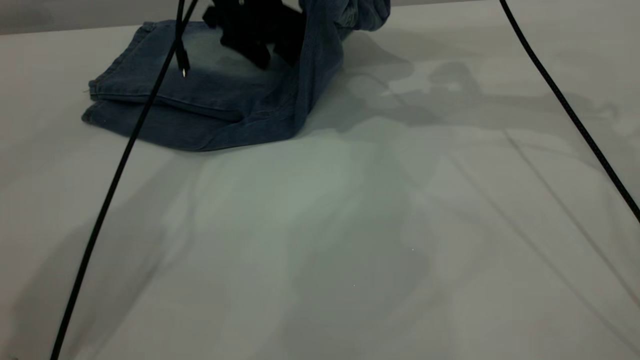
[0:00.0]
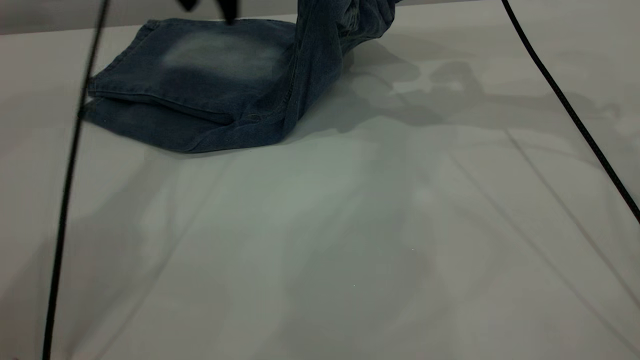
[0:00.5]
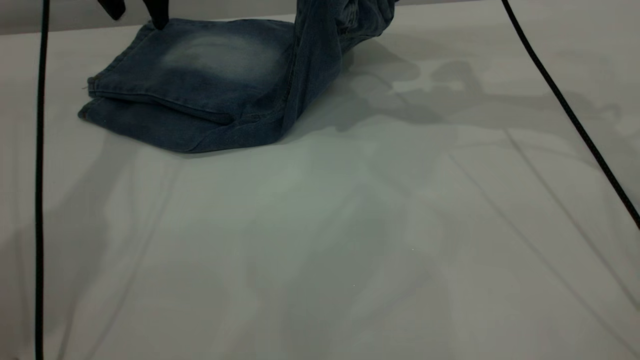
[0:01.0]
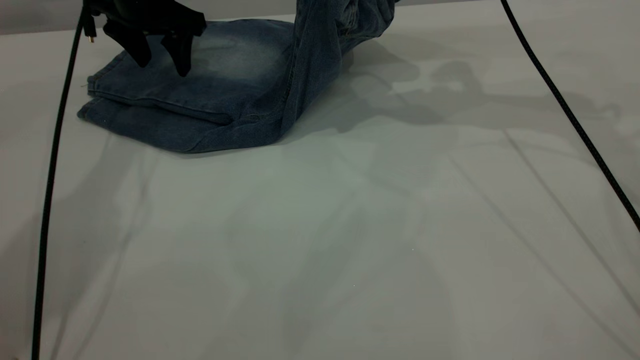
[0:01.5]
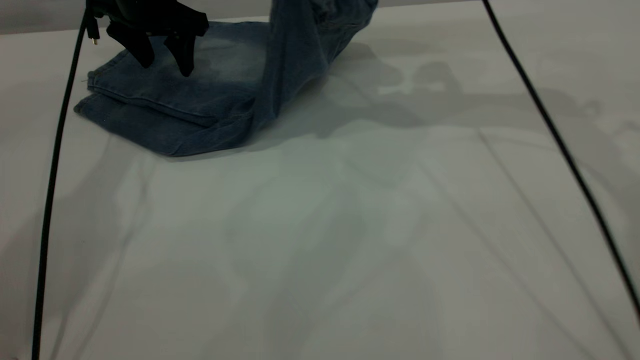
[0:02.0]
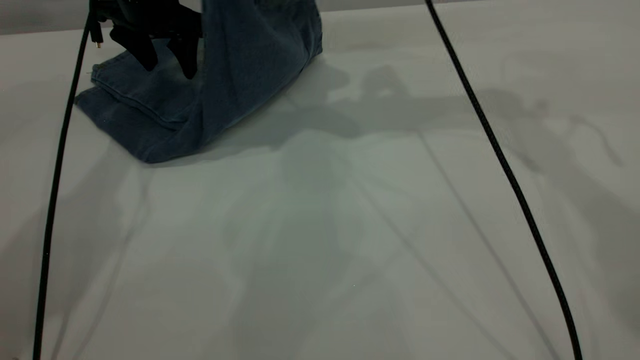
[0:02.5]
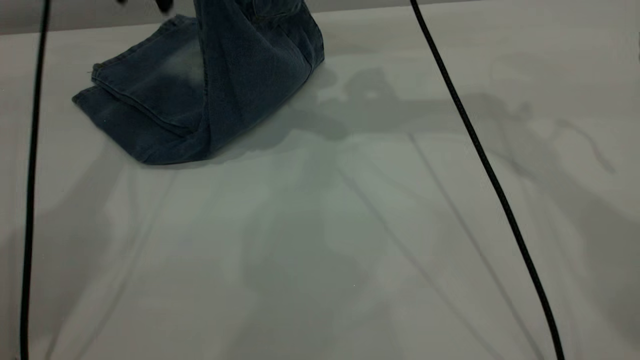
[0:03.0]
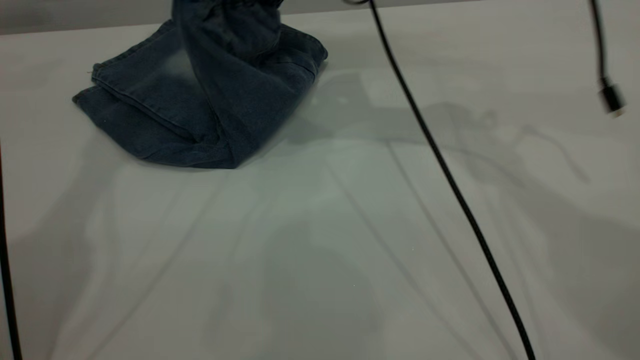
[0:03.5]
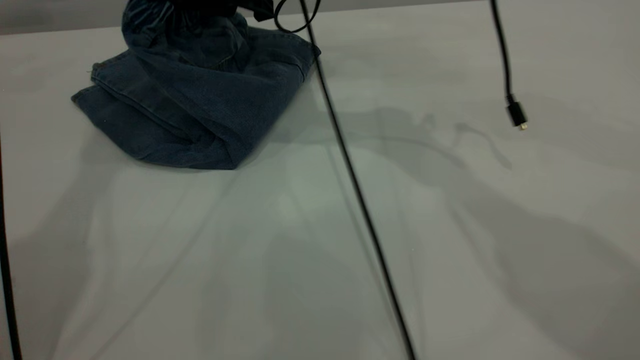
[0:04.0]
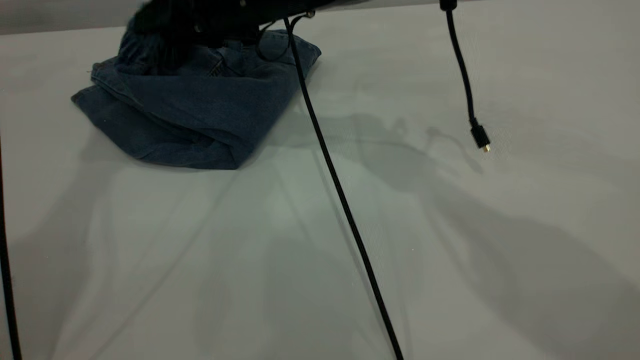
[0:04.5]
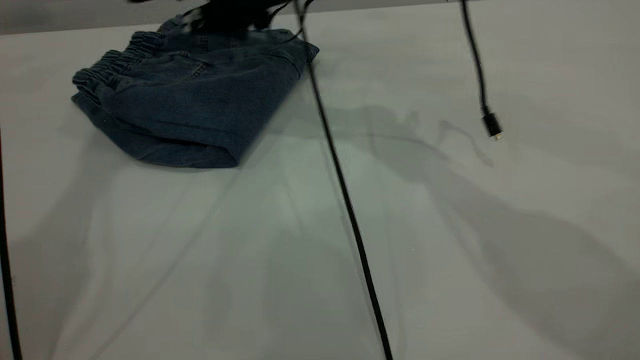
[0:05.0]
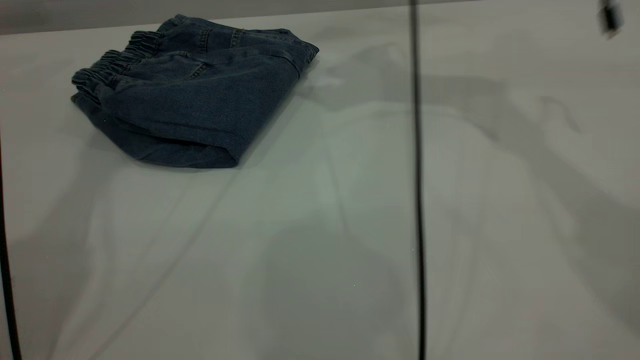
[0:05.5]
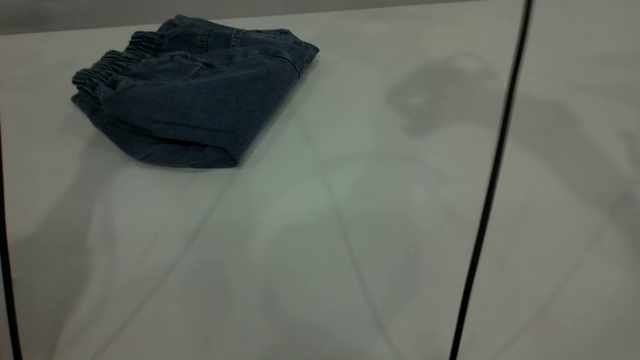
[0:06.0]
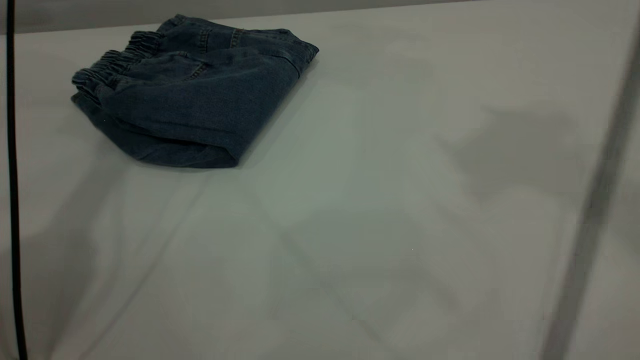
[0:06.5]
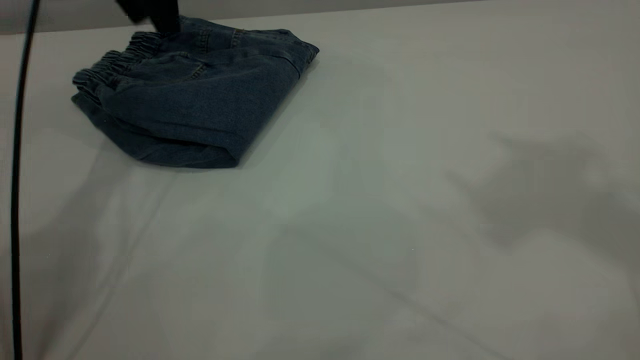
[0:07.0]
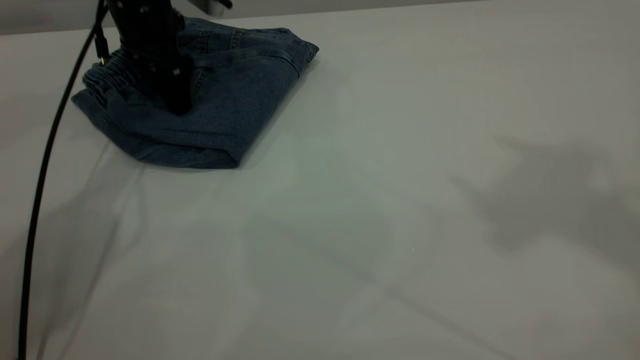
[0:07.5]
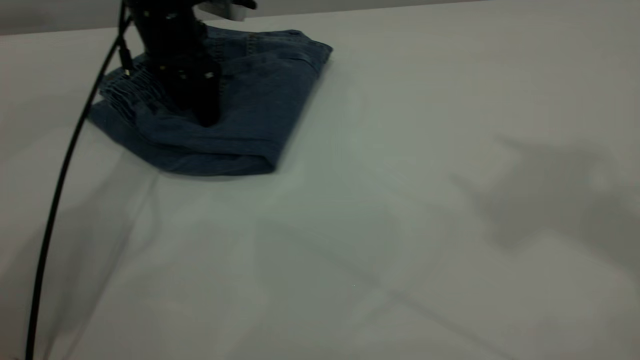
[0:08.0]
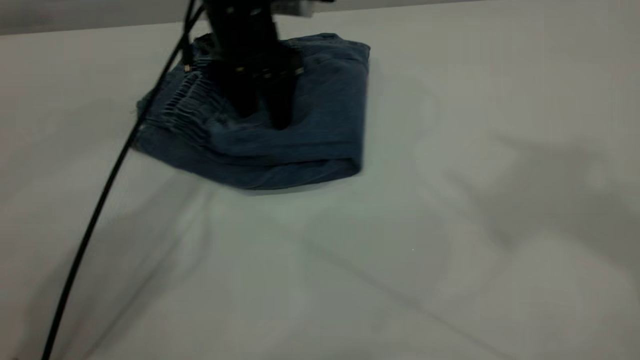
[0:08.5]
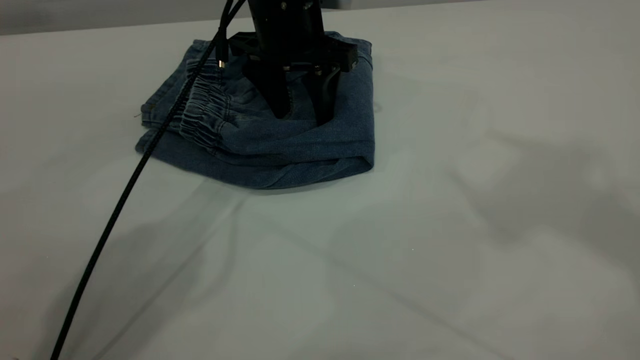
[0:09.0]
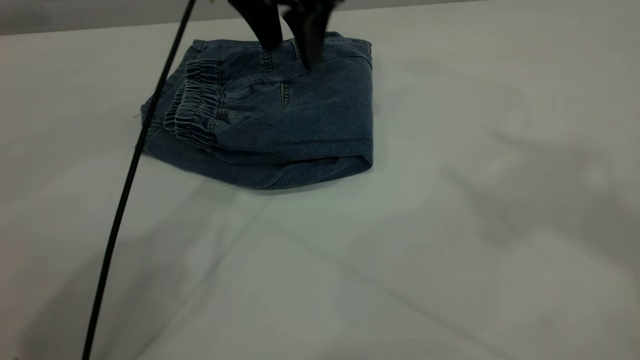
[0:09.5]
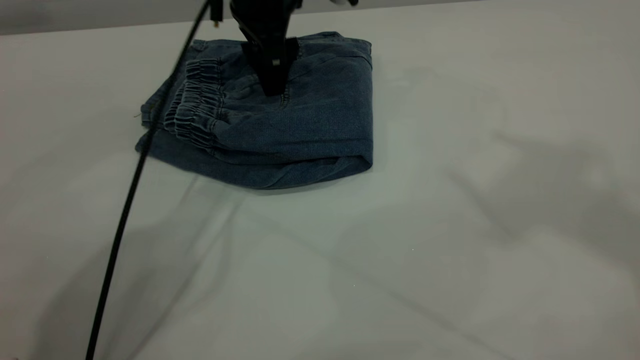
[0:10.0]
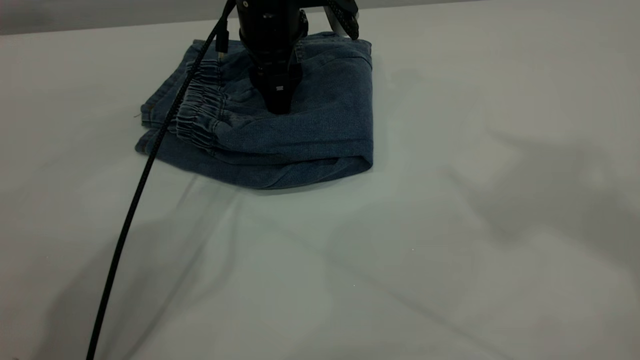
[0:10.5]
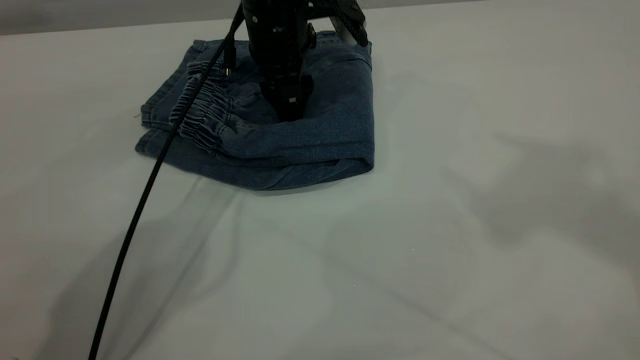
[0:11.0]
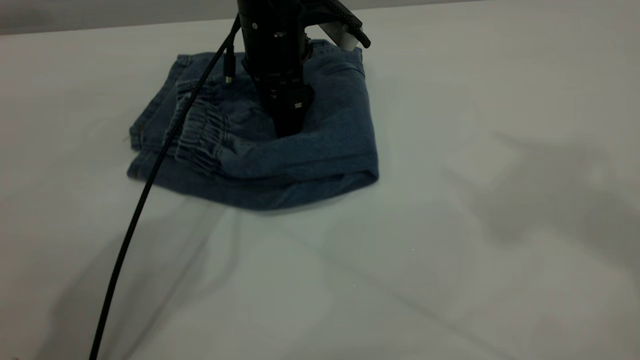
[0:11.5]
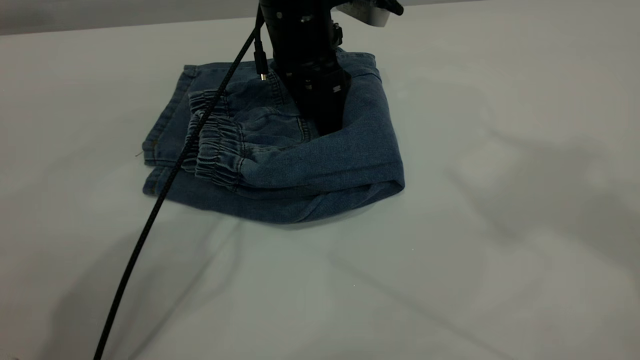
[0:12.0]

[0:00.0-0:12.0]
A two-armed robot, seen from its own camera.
Step, 0:00.0 to 0:05.0: Fold your pants from right to left.
0:00.0 to 0:02.0: The left gripper goes roughly 10 cm to the left.
0:02.0 to 0:04.0: The left gripper moves upward, approximately 25 cm; the right gripper goes approximately 15 cm to the left.
0:04.0 to 0:06.0: The right gripper goes roughly 30 cm upward and to the right, and opens.
0:06.0 to 0:08.0: The left gripper goes some 25 cm downward; the right gripper moves backward and upward, about 20 cm.
0:08.0 to 0:10.0: The left gripper goes roughly 10 cm to the right.

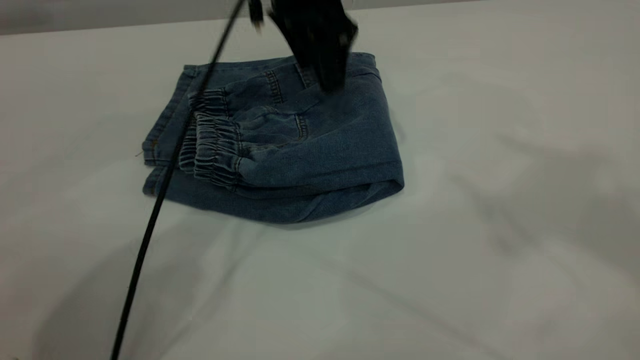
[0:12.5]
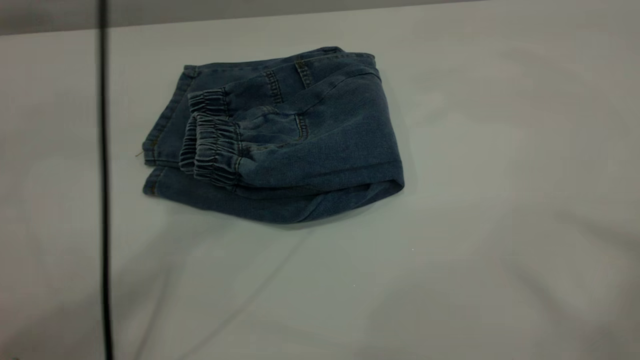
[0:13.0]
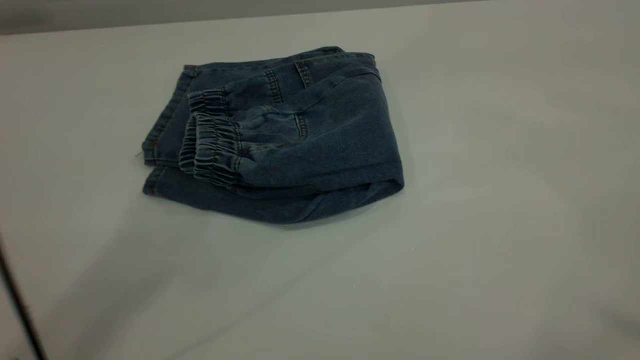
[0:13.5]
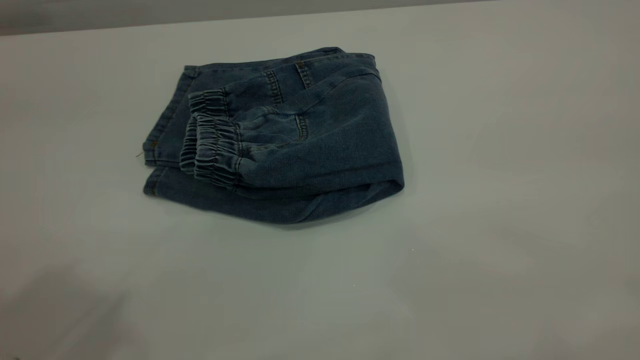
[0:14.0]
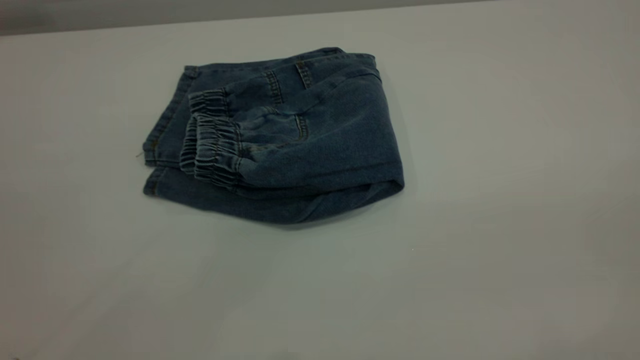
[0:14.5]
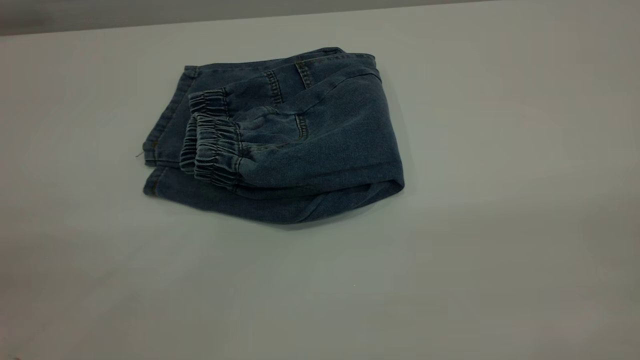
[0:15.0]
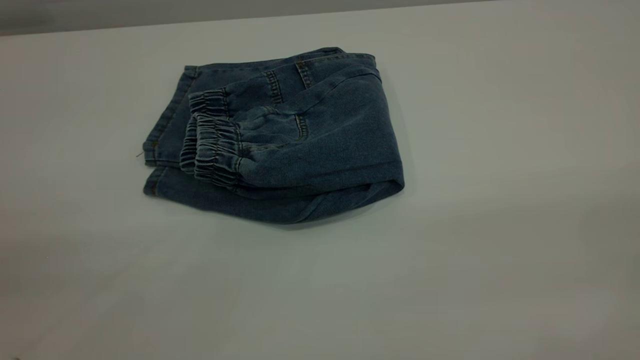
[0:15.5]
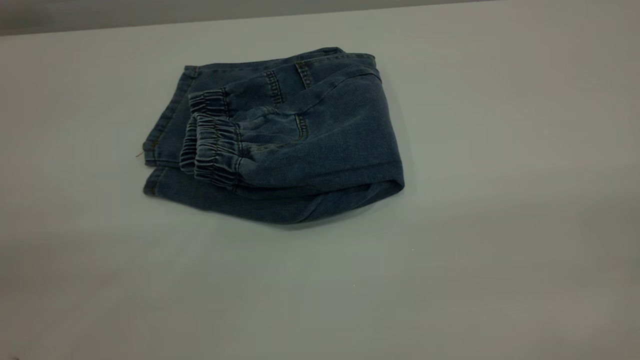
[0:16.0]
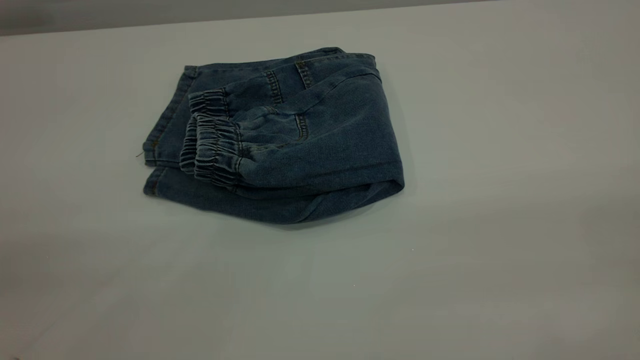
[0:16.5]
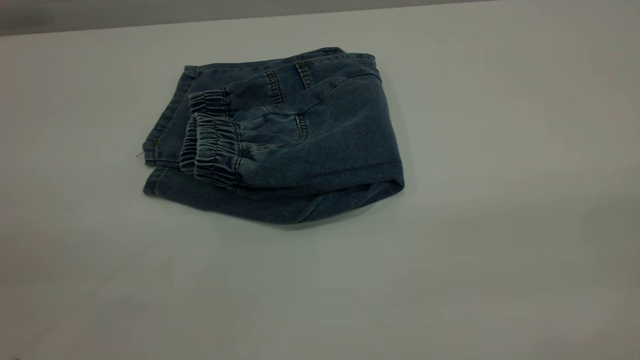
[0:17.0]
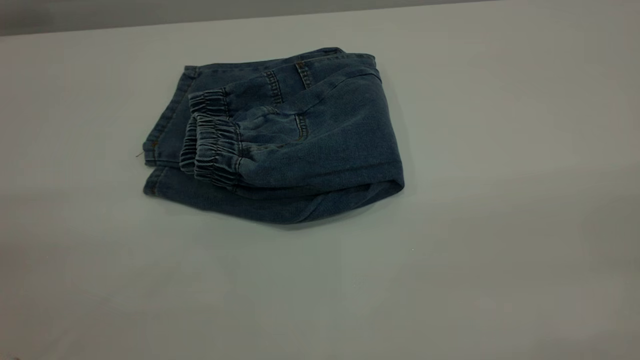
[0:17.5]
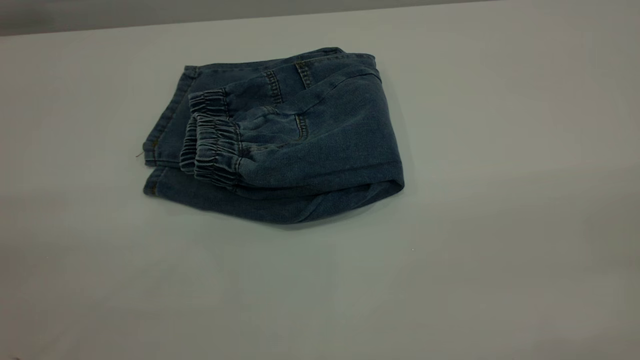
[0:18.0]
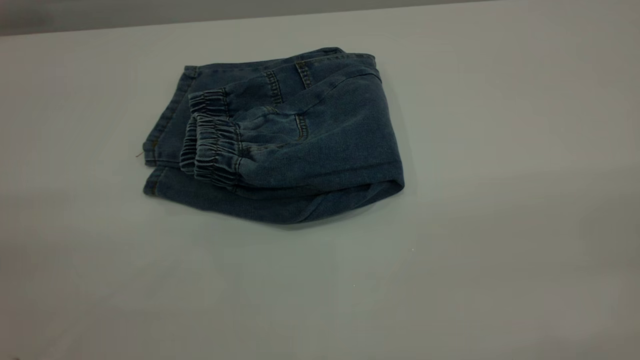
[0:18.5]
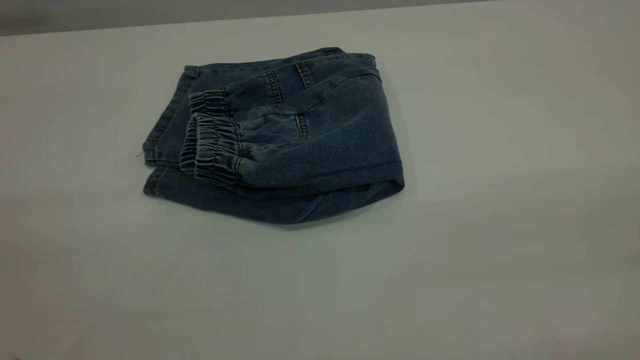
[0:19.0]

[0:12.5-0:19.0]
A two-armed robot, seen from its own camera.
0:12.5 to 0:14.5: The right gripper travels backward and downward by roughly 35 cm; the left gripper goes approximately 50 cm backward, to the left and upward.

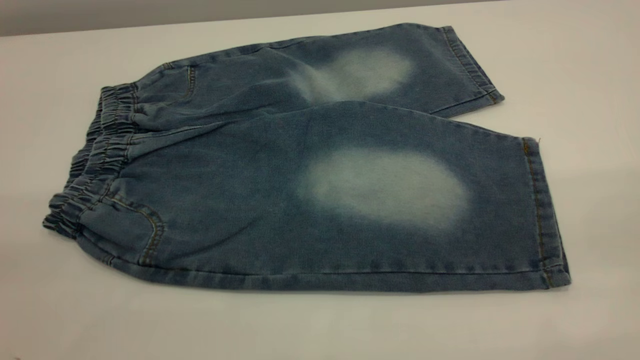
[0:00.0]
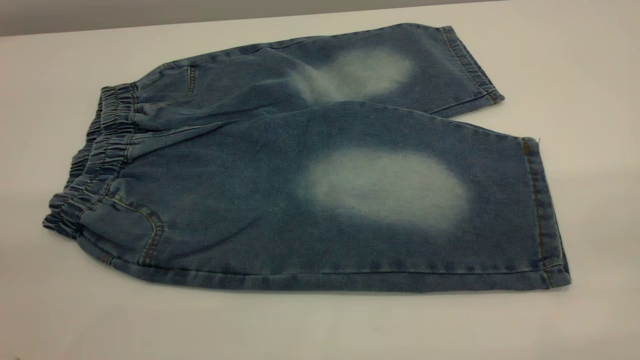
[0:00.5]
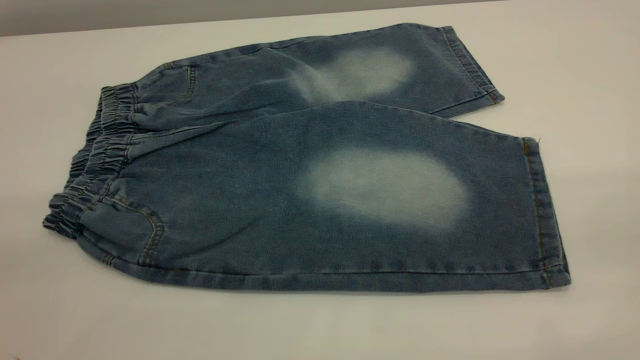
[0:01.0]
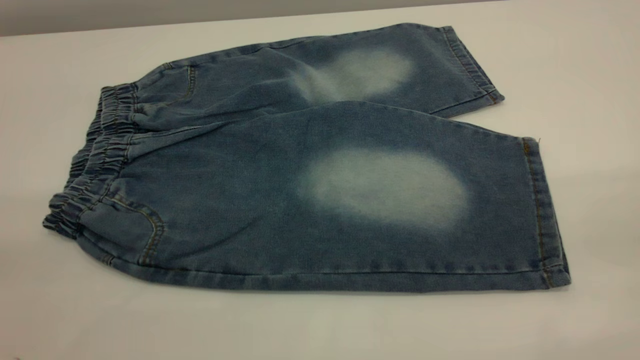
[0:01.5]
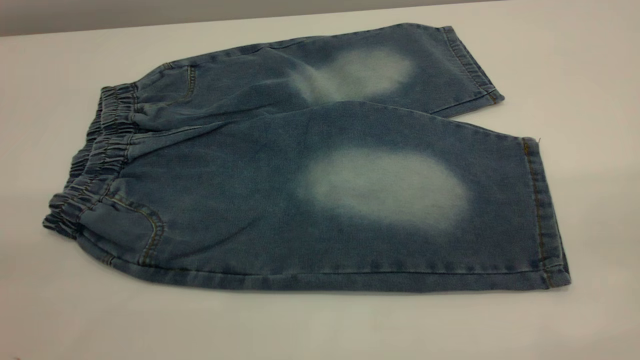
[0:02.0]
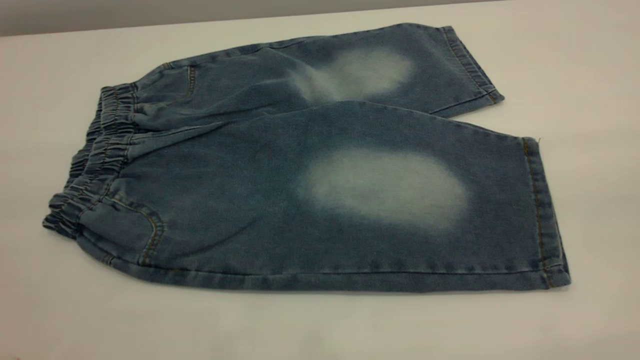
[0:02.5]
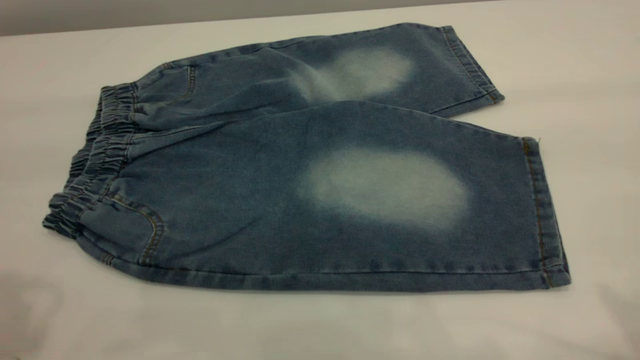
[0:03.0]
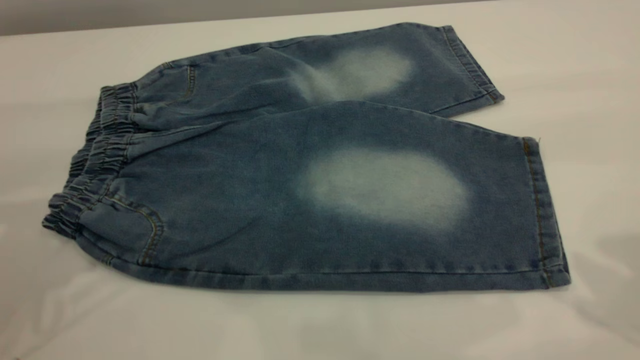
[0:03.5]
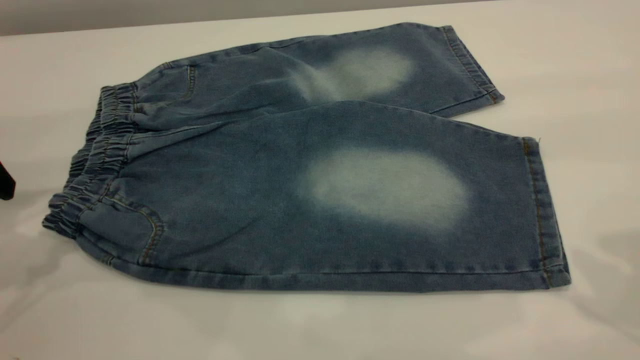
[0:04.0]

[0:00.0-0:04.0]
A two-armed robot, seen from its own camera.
0:02.0 to 0:04.0: The left gripper travels forward and downward by approximately 30 cm.
